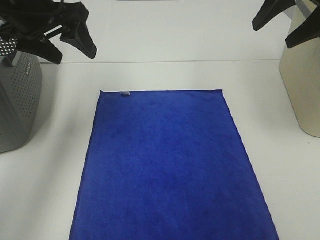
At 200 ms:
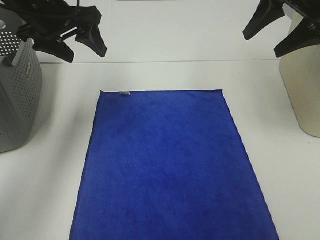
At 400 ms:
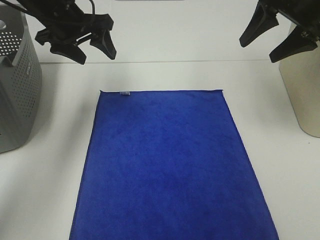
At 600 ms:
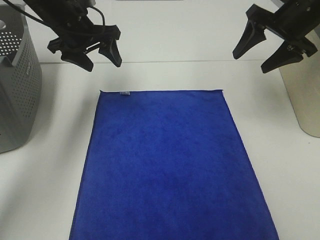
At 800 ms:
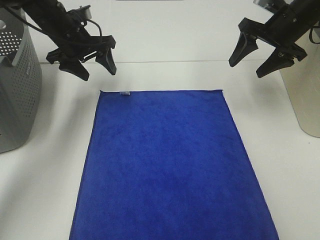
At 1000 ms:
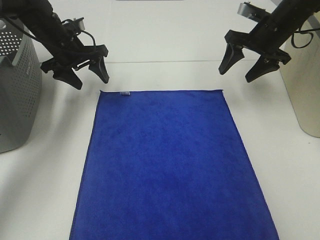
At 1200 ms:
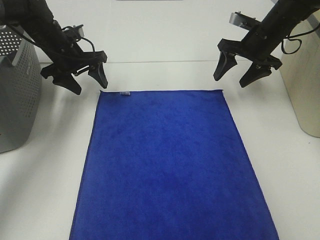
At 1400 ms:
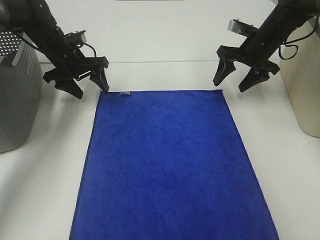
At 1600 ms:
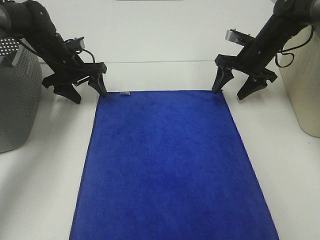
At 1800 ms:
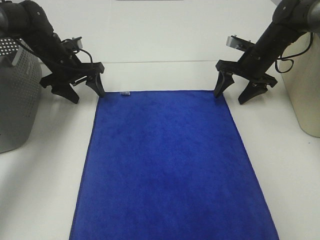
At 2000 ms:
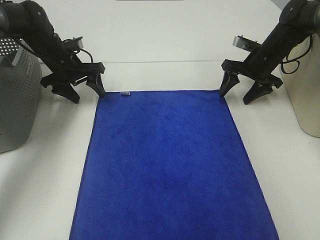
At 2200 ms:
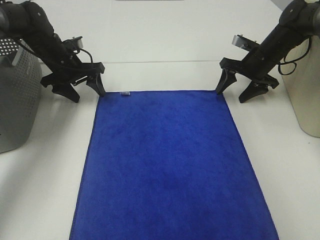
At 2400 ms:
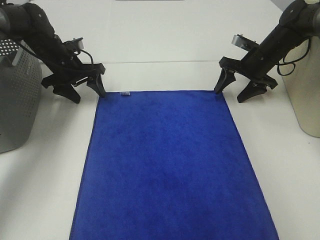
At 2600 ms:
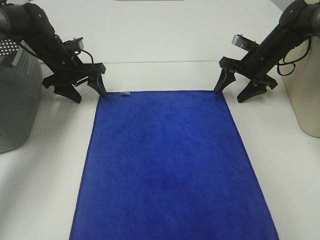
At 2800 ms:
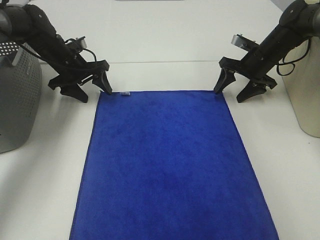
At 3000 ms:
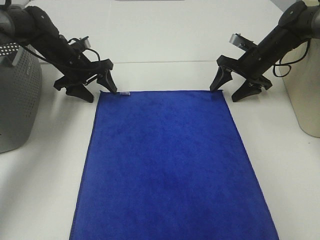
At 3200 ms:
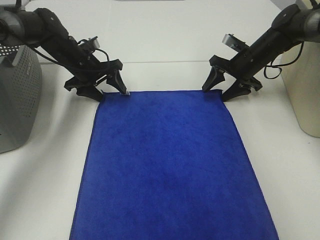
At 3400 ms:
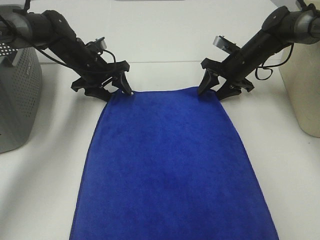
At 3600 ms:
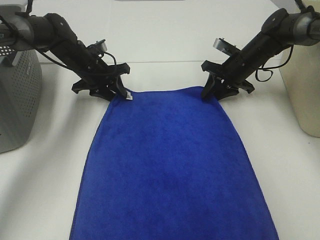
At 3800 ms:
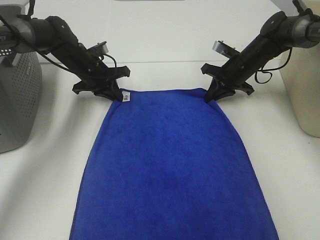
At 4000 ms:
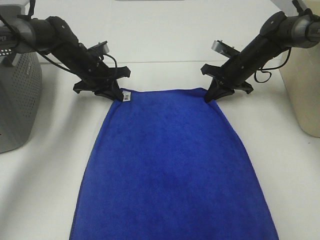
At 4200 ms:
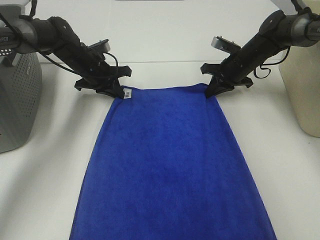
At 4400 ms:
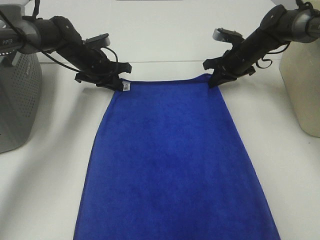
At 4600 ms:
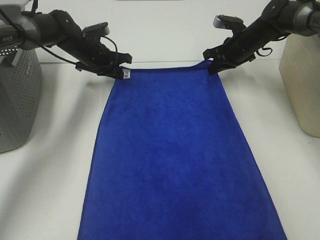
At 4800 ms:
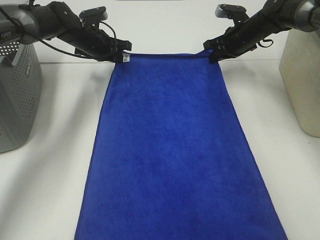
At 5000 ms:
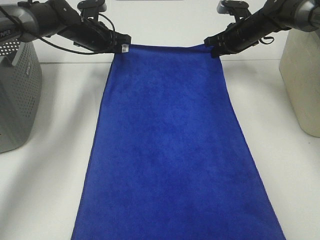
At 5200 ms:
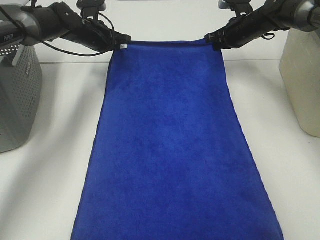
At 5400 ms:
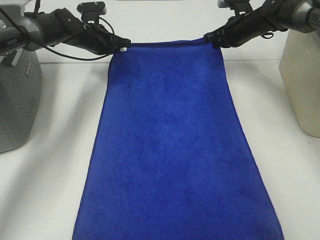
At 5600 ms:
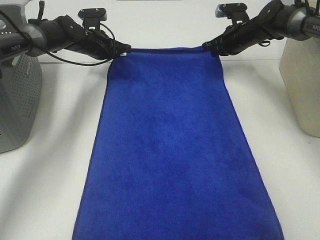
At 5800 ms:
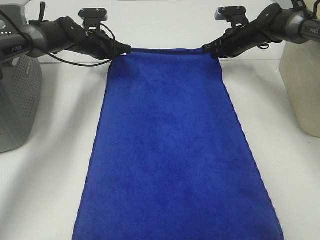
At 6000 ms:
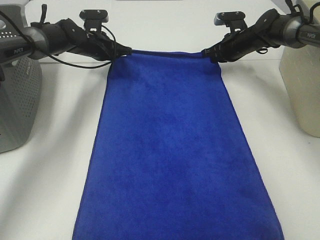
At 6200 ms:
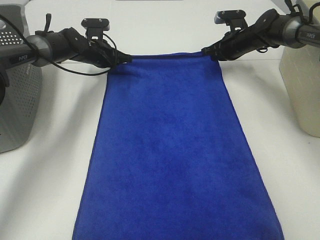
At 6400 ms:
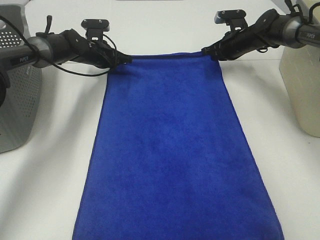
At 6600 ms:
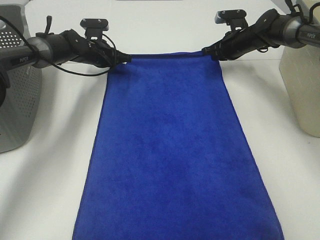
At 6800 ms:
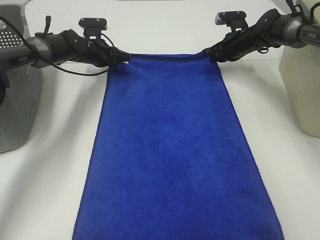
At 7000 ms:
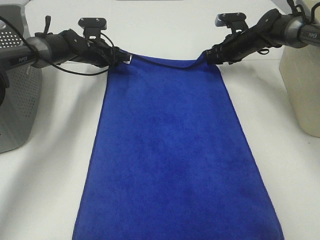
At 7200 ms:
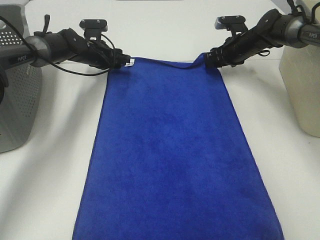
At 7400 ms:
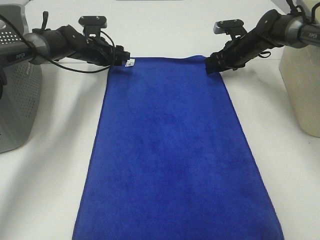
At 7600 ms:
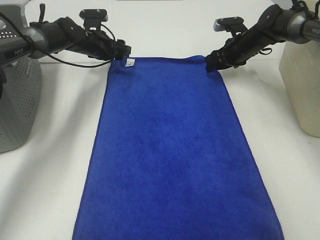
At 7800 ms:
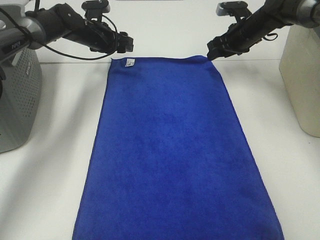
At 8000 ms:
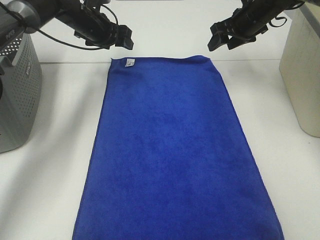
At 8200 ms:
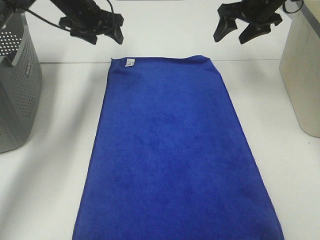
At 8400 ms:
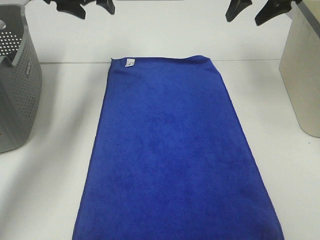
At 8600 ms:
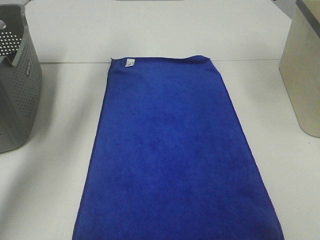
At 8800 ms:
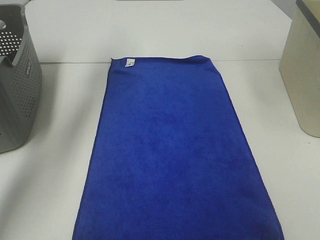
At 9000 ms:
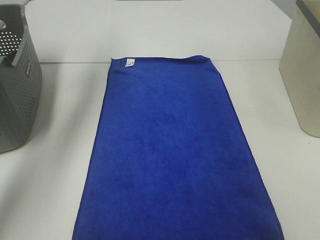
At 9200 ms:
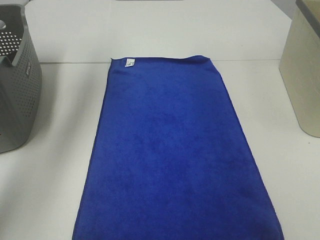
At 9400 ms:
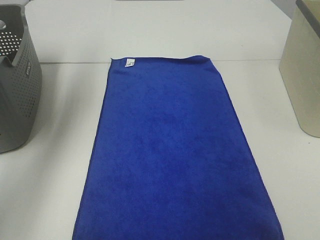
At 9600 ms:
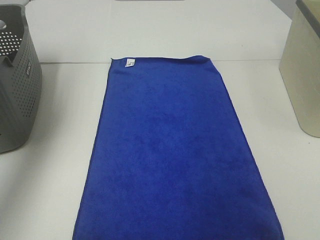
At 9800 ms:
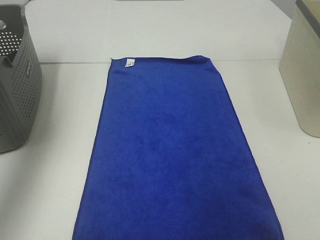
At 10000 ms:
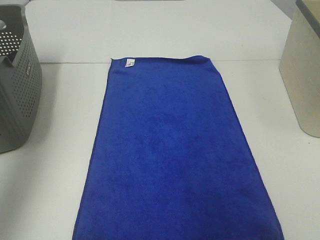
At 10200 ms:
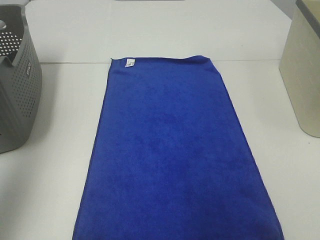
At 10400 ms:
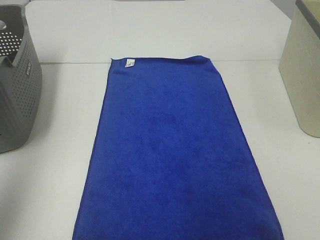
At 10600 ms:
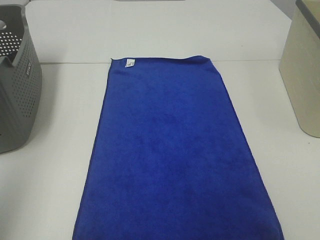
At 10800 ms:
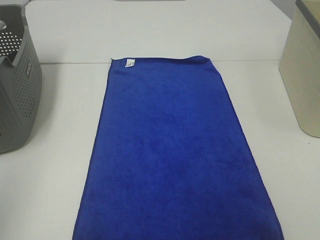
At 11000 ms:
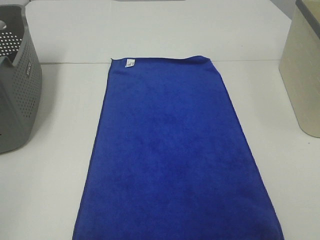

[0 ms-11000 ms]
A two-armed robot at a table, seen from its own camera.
Task of the whole recording: Remove the towel and place it.
0 ms to 1600 ms: The grippers both shift downward and forward by some 20 cm.
1600 ms to 3200 ms: There are only small adjustments of the grippers.
3200 ms to 4800 ms: Both grippers move forward, roughly 5 cm. The left gripper closes its fingers. The right gripper closes.
4800 ms to 6200 ms: The left gripper changes place by some 5 cm.
6200 ms to 7800 ms: The grippers both shift upward by roughly 5 cm. The right gripper opens its fingers; the left gripper opens.
7800 ms to 9400 ms: The left gripper is displaced upward, backward and to the left by some 35 cm, while the right gripper heads upward and backward, covering approximately 35 cm.
9400 ms to 11000 ms: The left gripper heads backward, covering some 35 cm.

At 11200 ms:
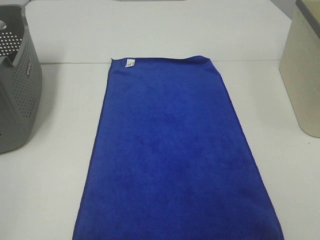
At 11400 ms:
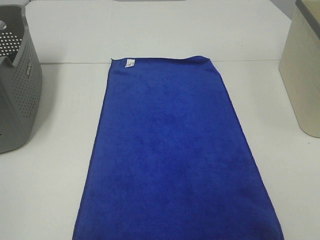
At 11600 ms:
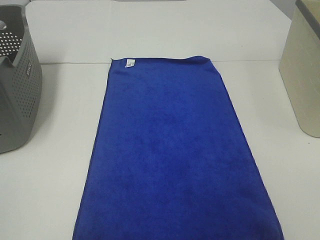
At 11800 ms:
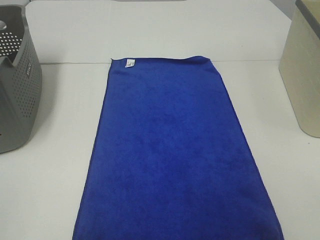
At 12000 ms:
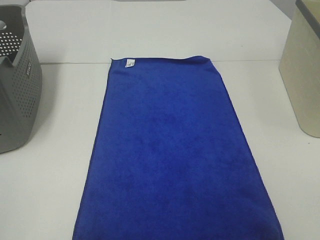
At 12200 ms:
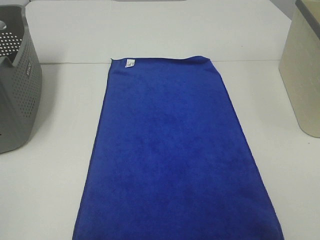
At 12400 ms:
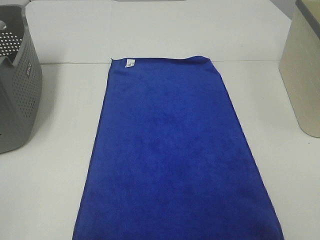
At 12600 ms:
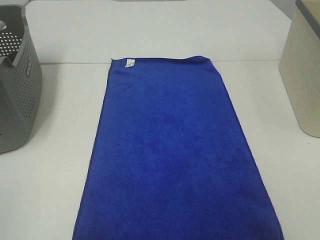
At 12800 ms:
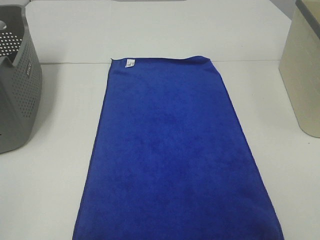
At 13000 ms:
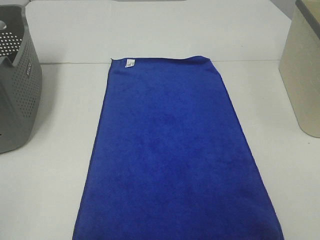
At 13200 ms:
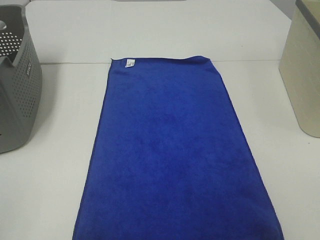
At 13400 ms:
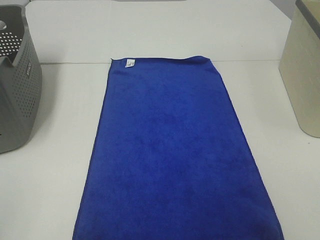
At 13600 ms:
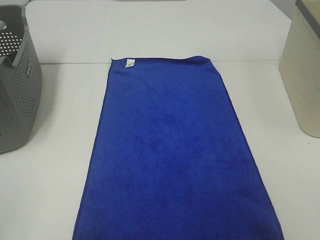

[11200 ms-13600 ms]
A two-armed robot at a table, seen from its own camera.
Task of the whole recording: Remove the towel and place it.
12400 ms to 13600 ms: Neither gripper changes place.
